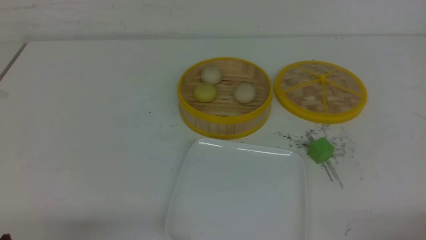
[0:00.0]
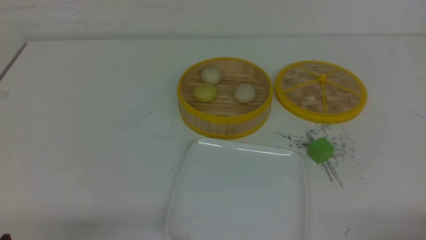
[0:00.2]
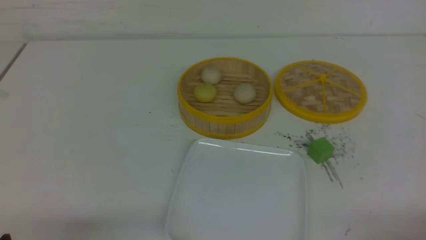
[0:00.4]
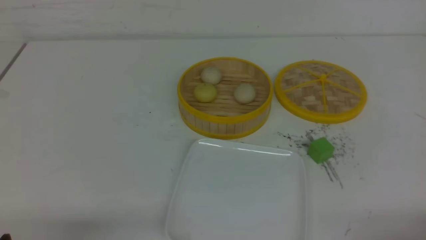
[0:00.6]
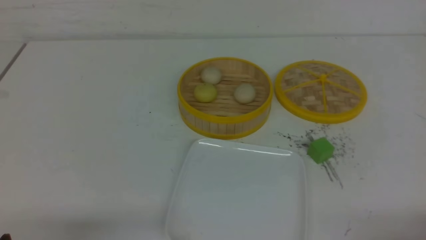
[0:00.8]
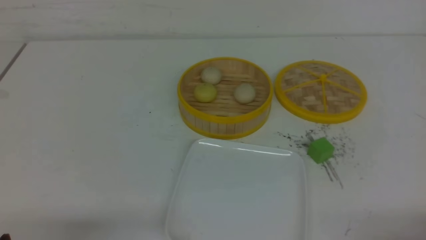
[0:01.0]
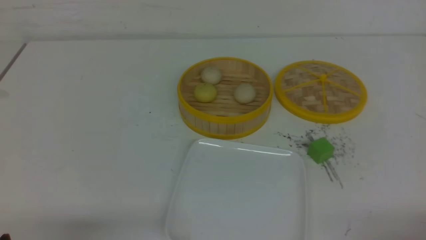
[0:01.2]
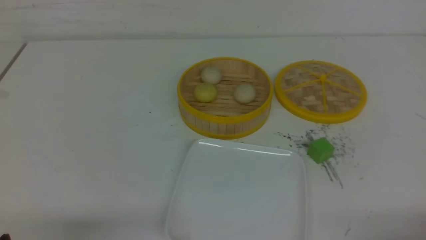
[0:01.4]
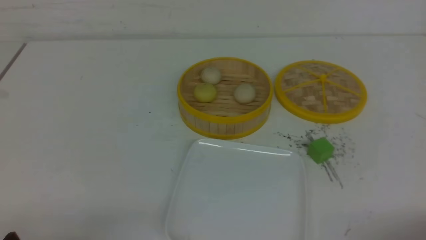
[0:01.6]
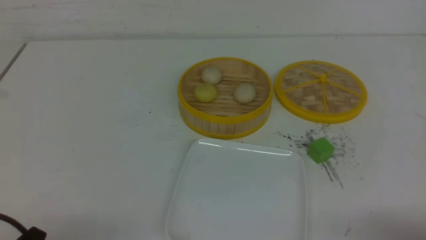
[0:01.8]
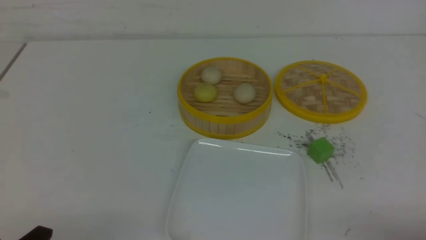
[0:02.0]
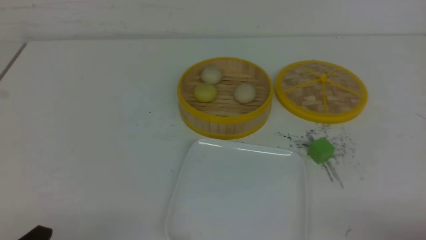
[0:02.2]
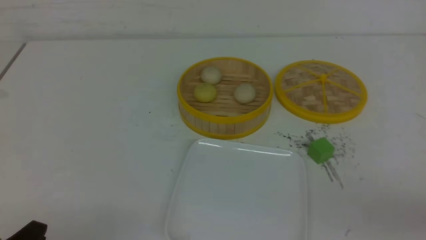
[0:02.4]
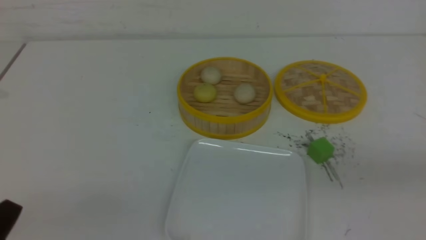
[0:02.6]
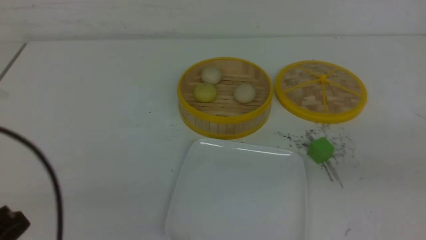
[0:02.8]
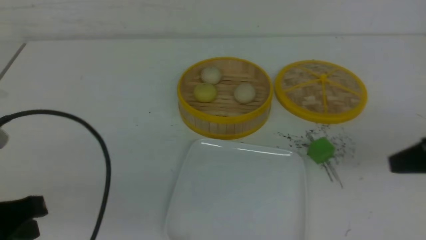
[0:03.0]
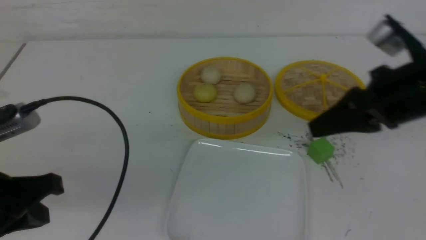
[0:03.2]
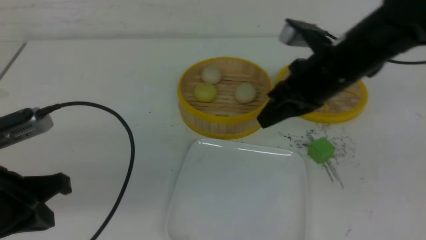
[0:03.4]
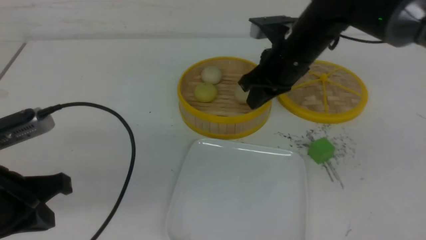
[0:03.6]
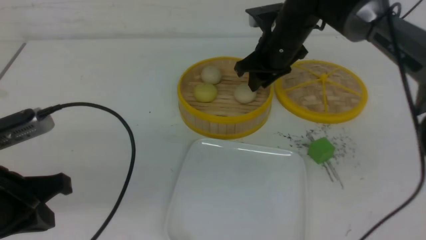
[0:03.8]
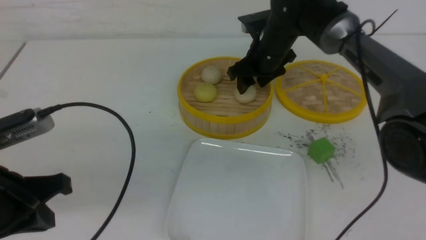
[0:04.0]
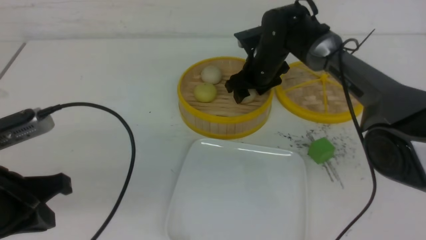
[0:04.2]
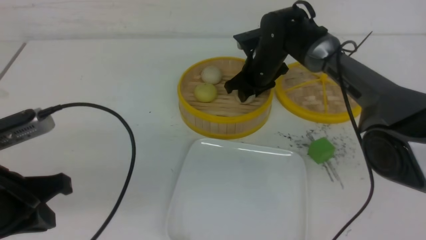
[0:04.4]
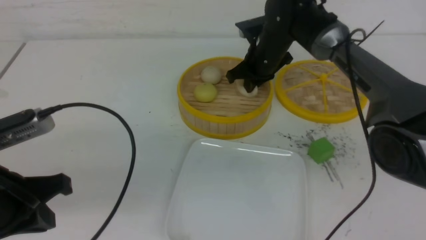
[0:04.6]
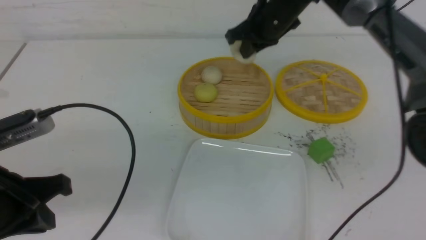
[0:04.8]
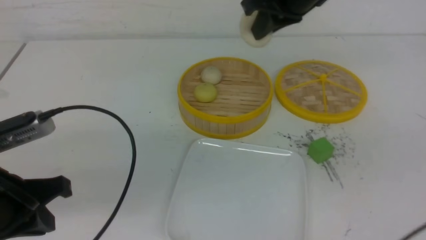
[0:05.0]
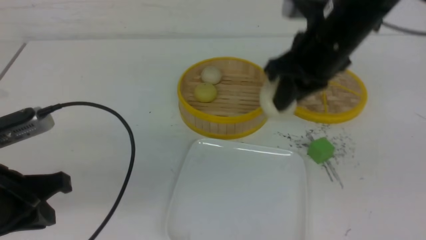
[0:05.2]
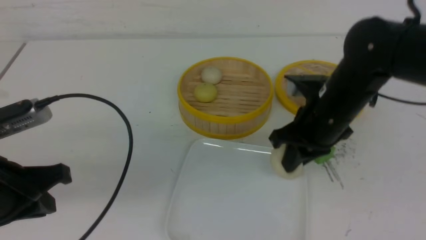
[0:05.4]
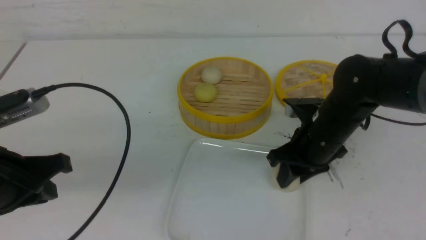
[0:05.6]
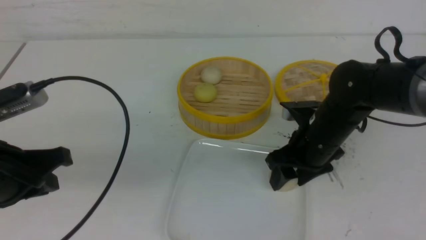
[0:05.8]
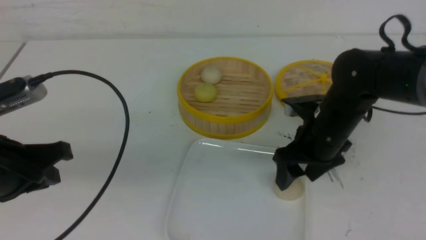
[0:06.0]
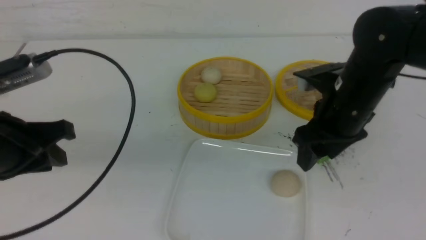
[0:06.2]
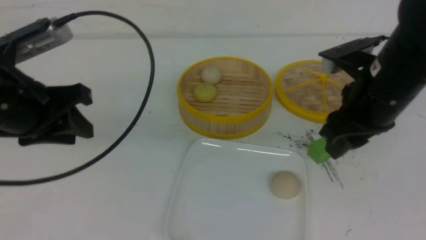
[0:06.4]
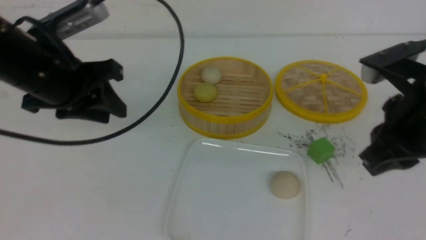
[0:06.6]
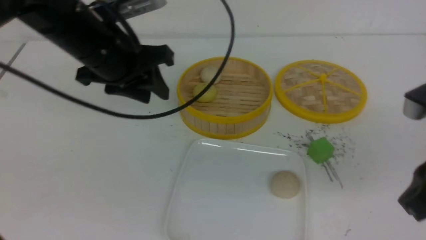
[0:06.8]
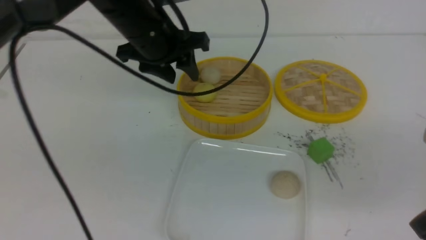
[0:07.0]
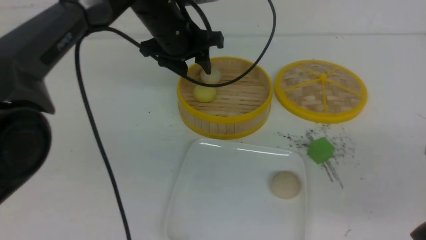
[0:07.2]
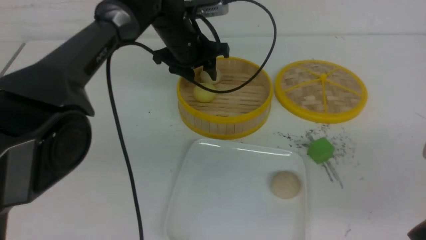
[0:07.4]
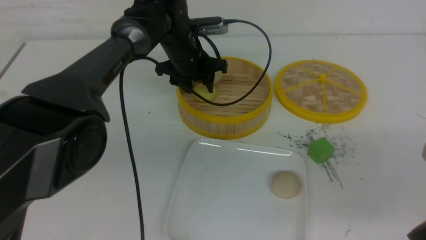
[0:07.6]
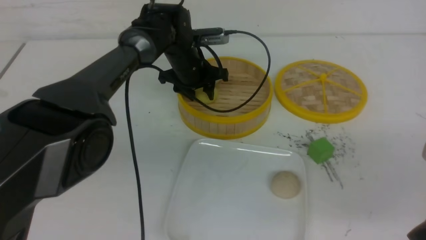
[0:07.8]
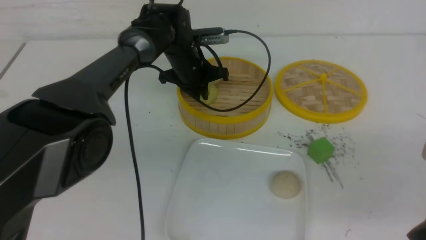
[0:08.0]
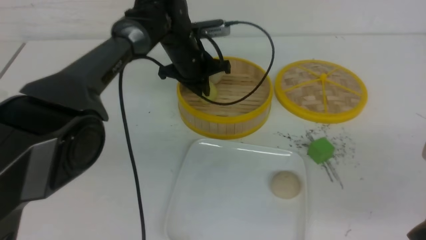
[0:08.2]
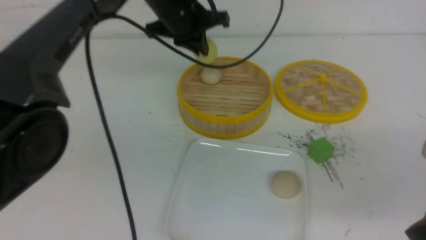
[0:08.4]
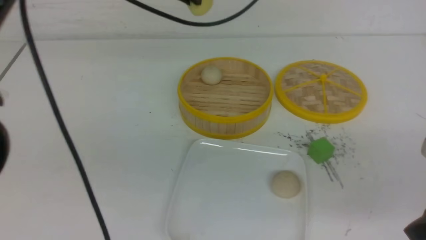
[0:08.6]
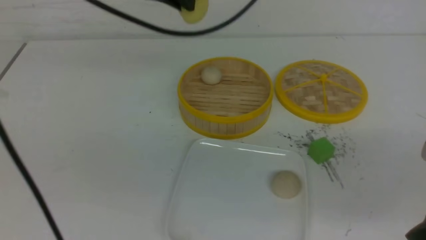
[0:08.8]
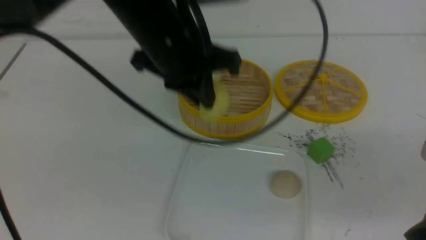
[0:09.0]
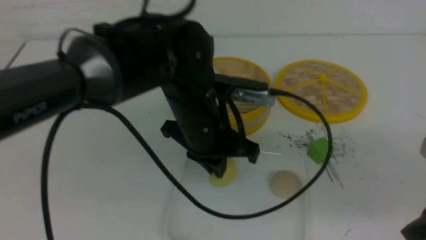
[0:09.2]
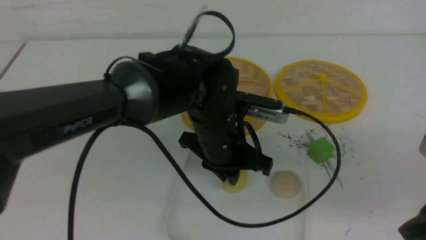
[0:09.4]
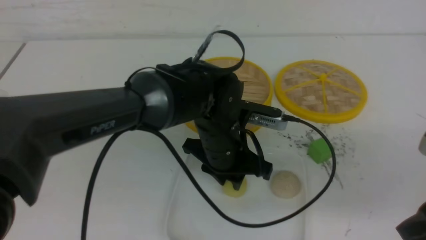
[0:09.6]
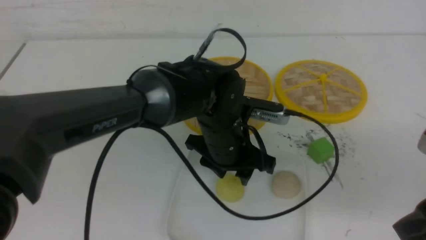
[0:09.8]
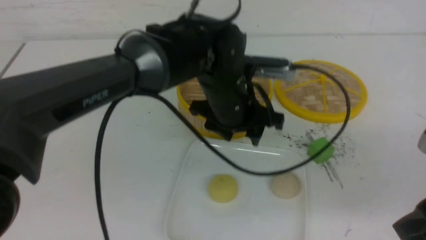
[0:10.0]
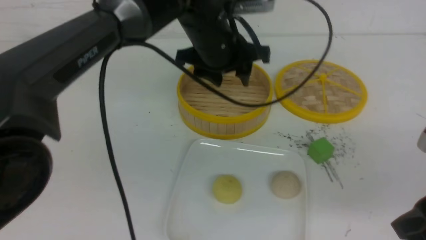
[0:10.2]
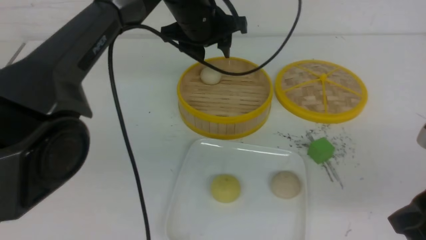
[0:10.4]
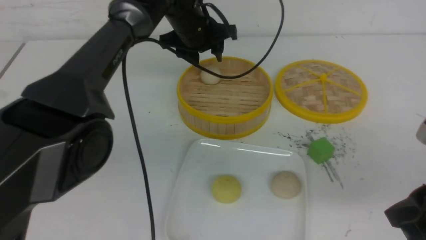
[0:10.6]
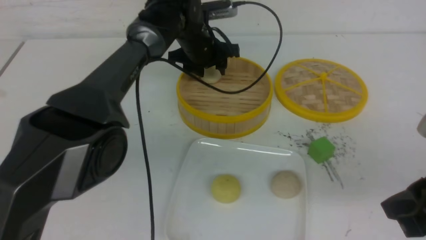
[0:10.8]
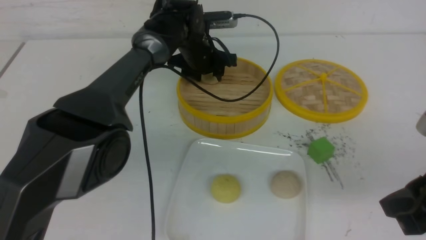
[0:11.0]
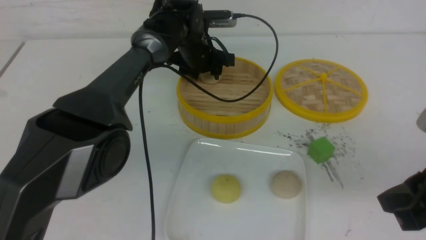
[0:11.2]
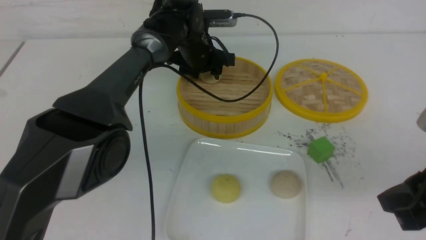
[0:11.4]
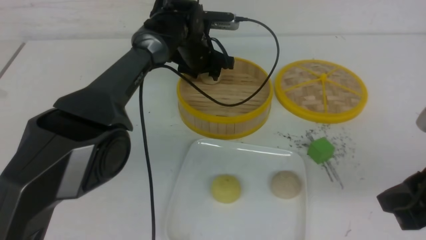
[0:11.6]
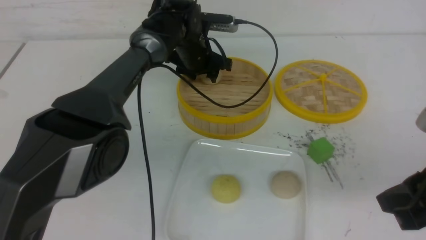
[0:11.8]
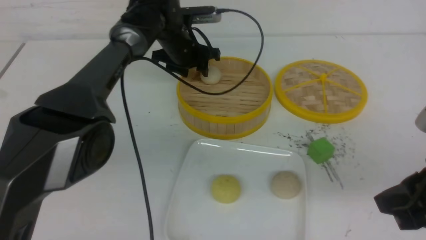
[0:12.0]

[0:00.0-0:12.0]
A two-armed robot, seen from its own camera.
Step, 0:00.0 to 0:04.4: use the right arm to grab the steamed stuffed bun that is closest to it.
Step, 0:04.6 to 0:05.8: use the right arm to put the steamed stuffed bun into the plate.
Step, 0:06.0 to 0:07.8: use the left arm to grab the steamed stuffed bun that is closest to it.
Step, 0:08.2 to 0:09.6: use the left arm to put the steamed stuffed bun into the plate.
0:01.6 to 0:03.0: The left gripper heads upward and forward, covering approximately 15 cm, and closes; the right gripper moves upward and forward, approximately 20 cm, and closes up.
0:03.0 to 0:04.4: The left gripper is displaced forward by some 5 cm. Meanwhile the right gripper shifts some 35 cm forward and to the left, and opens its fingers.
0:04.4 to 0:06.0: The right gripper heads backward, covering roughly 20 cm, and opens up.
0:06.0 to 0:07.6: The right gripper shifts roughly 20 cm backward and to the right, and closes. The left gripper is displaced forward and to the right by roughly 35 cm, and opens its fingers.
0:07.6 to 0:09.0: The left gripper is displaced backward and upward by some 20 cm, and closes its fingers.
0:09.0 to 0:10.4: The left gripper travels forward by roughly 15 cm, and opens up.
0:10.4 to 0:12.0: The left gripper is displaced downward and forward by some 10 cm.

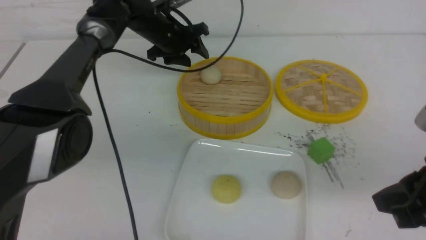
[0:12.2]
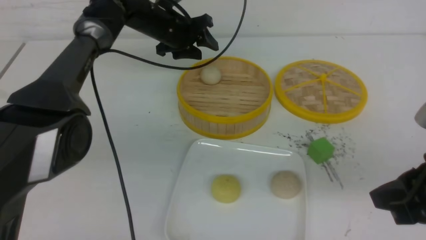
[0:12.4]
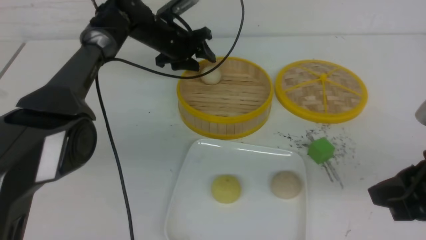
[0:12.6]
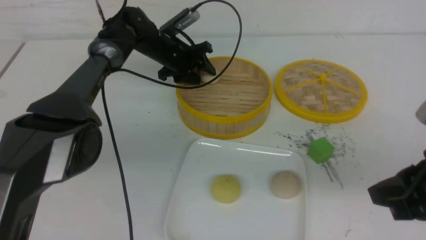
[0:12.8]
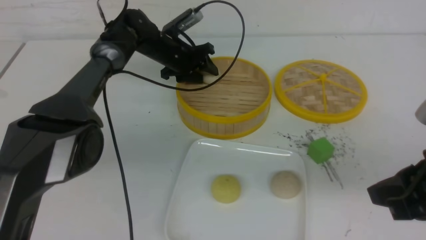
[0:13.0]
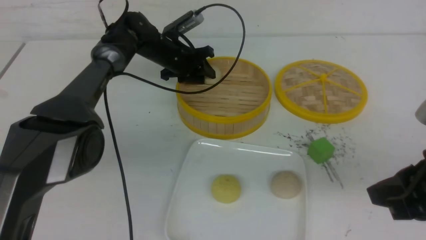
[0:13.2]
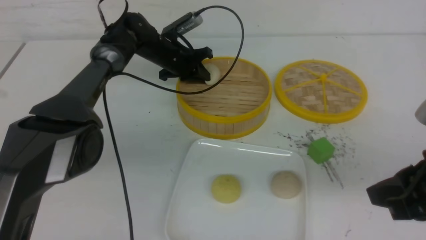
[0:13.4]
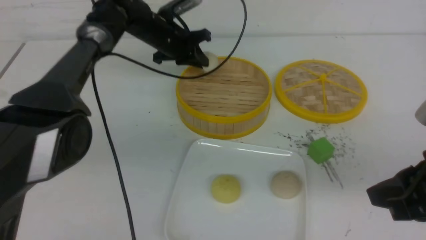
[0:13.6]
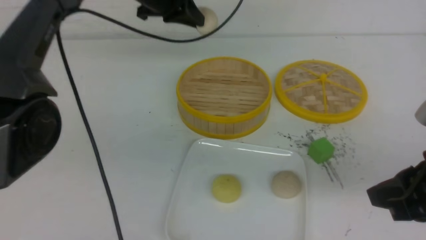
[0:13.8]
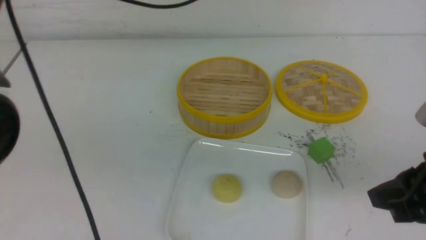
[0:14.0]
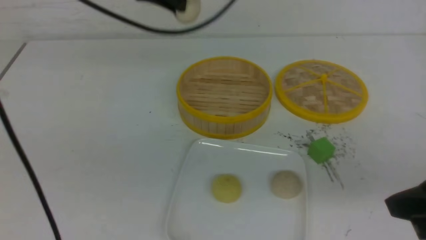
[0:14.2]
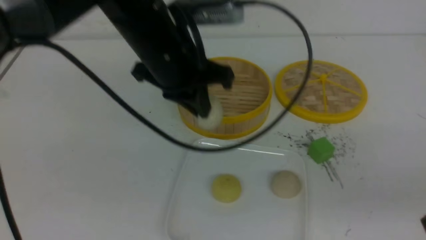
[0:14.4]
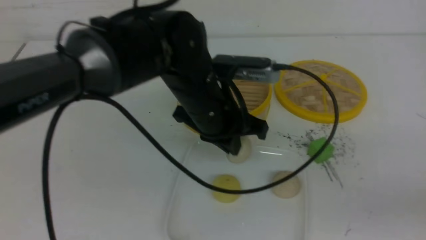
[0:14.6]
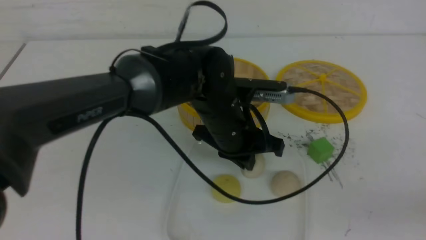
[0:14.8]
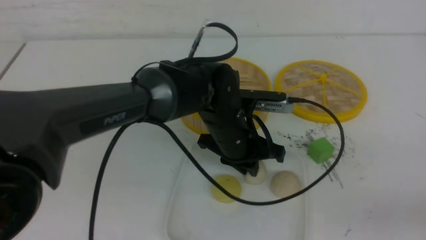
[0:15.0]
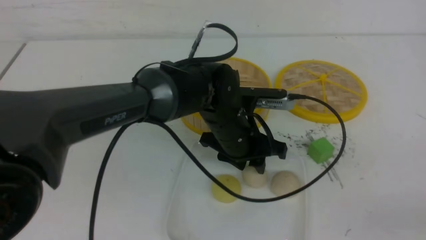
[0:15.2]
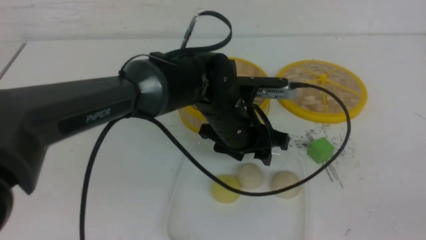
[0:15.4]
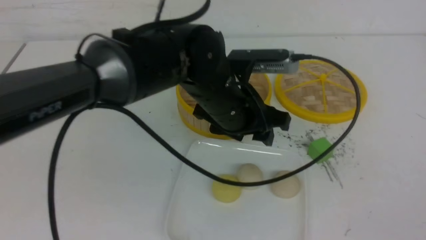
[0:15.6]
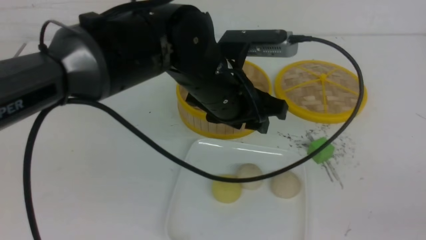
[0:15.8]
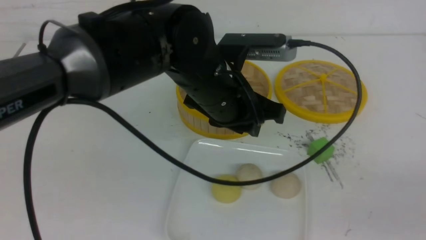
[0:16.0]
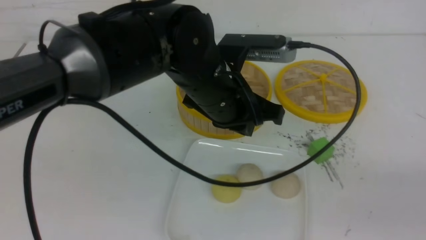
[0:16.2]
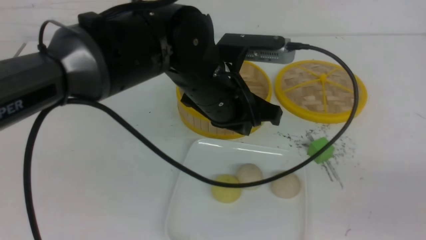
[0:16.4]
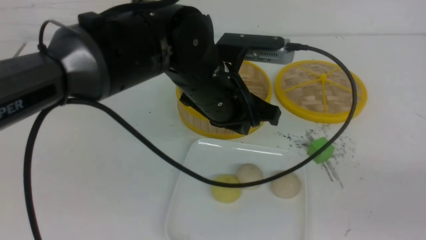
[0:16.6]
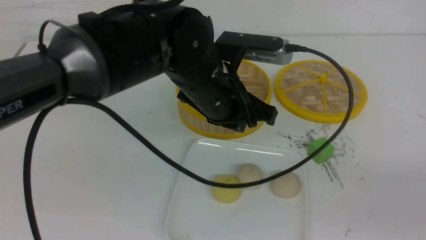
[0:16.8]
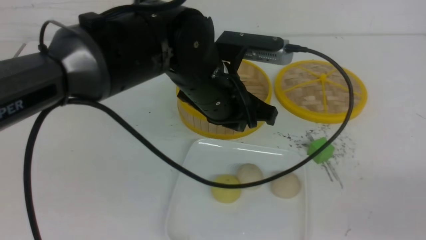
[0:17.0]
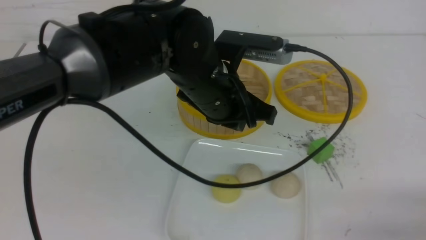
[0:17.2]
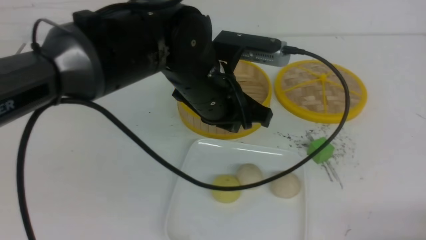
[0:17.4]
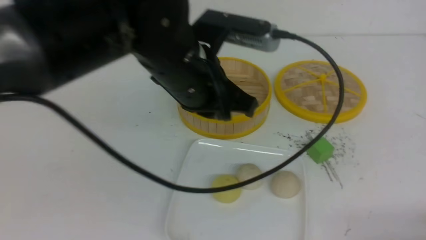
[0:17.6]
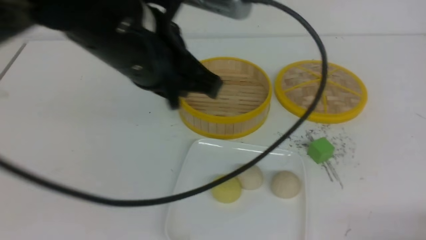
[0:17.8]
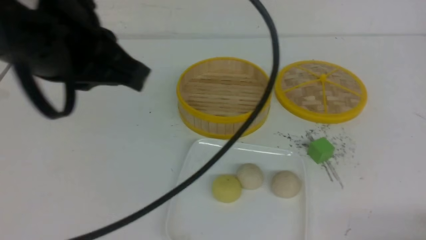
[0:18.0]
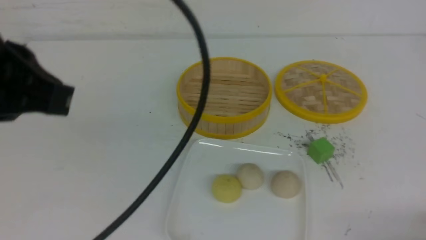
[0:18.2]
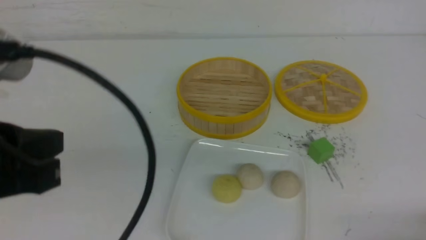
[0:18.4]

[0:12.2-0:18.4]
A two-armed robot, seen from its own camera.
Step, 0:13.6 to 0:15.4: use the left arm to put the steamed stuffed bun into the plate.
0:12.2 to 0:13.8: The left gripper shifts roughly 15 cm upward and backward, and closes up.
0:13.8 to 0:15.4: The left gripper goes approximately 25 cm backward, to the right and downward, and opens its fingers; the right gripper goes some 20 cm backward and to the right.
0:15.4 to 0:16.8: The left gripper heads upward, covering some 5 cm, and closes up, while the right gripper goes about 10 cm downward.
0:16.8 to 0:18.4: The left gripper is displaced to the left and backward by some 25 cm, while the right gripper goes some 10 cm downward.
